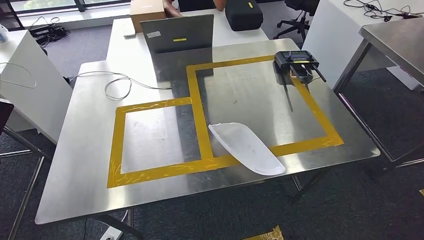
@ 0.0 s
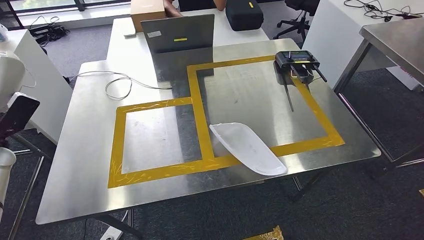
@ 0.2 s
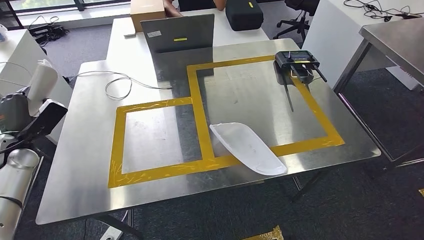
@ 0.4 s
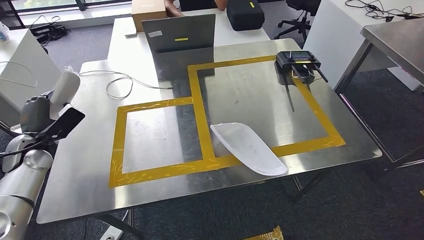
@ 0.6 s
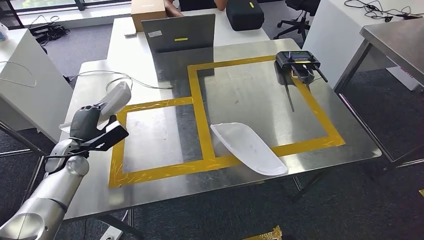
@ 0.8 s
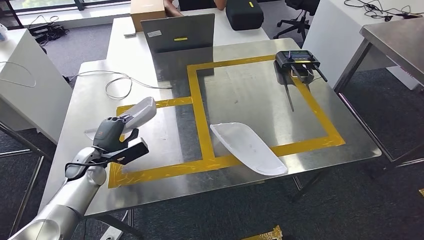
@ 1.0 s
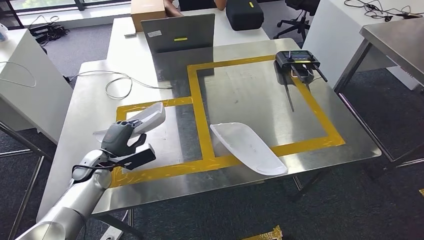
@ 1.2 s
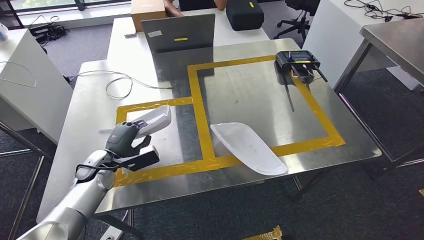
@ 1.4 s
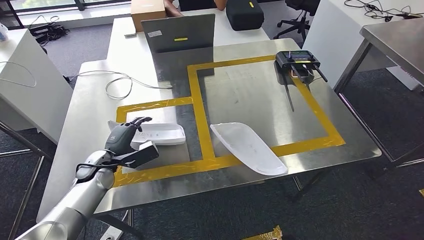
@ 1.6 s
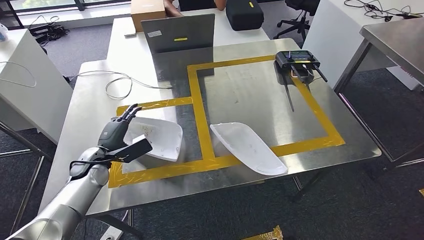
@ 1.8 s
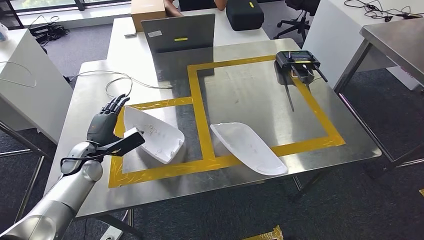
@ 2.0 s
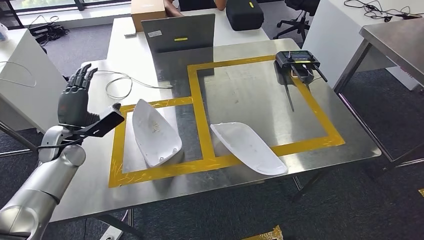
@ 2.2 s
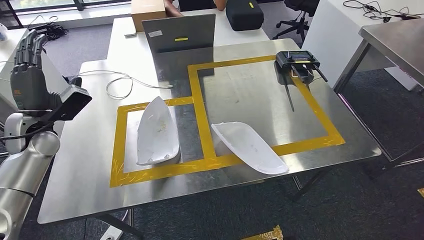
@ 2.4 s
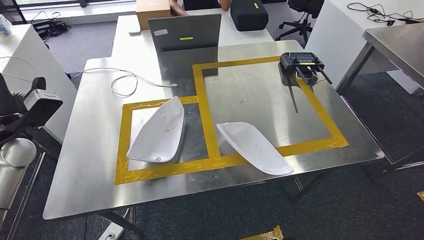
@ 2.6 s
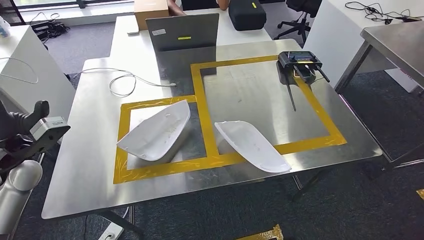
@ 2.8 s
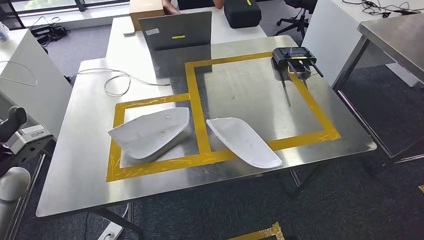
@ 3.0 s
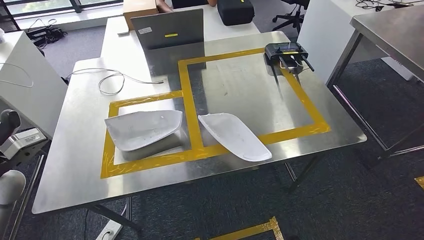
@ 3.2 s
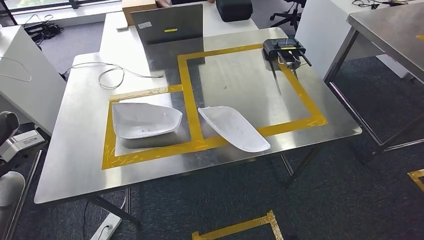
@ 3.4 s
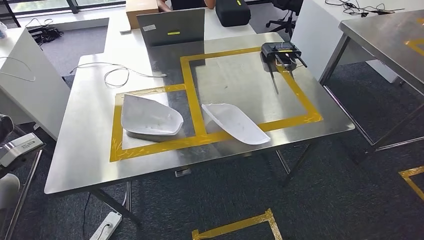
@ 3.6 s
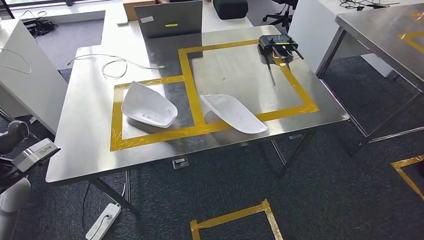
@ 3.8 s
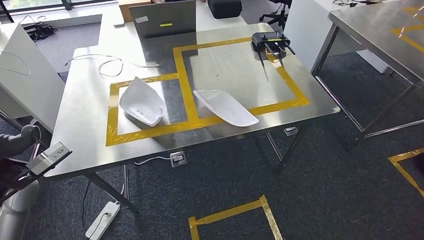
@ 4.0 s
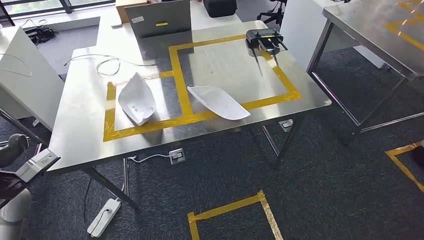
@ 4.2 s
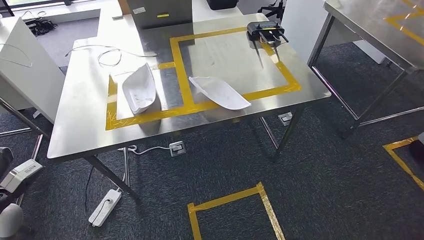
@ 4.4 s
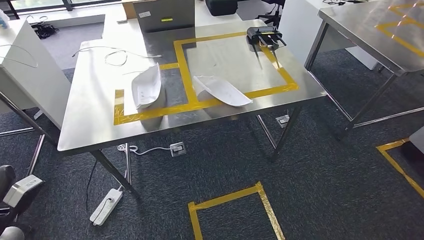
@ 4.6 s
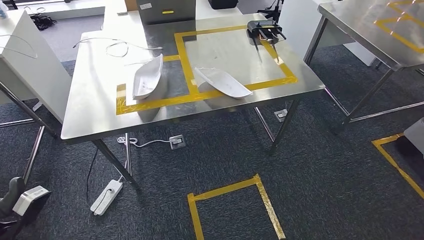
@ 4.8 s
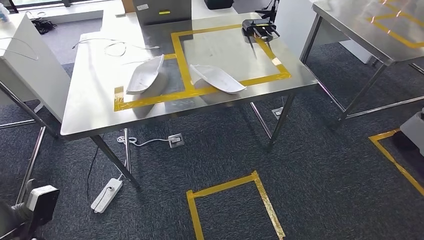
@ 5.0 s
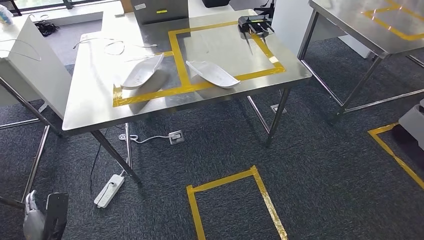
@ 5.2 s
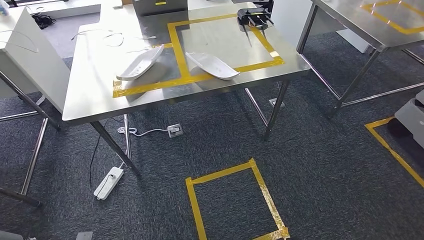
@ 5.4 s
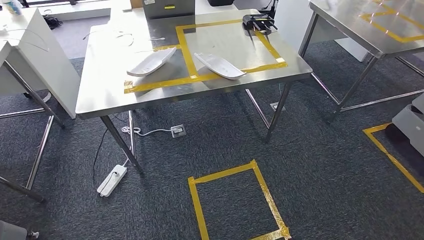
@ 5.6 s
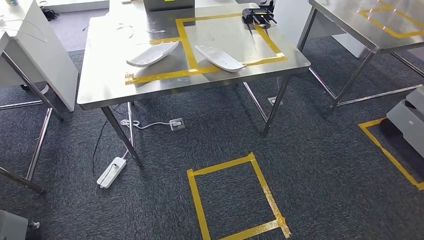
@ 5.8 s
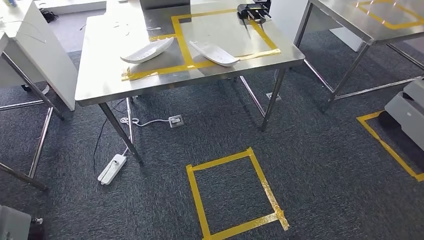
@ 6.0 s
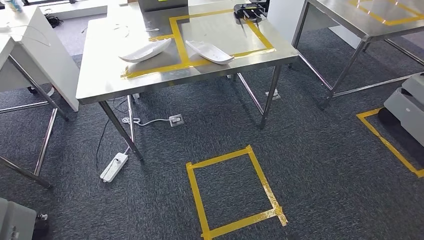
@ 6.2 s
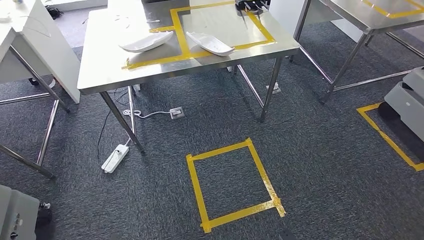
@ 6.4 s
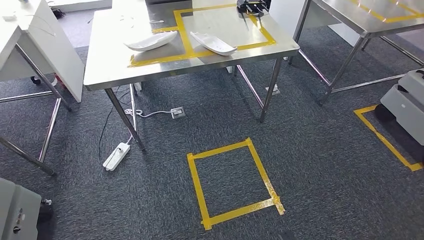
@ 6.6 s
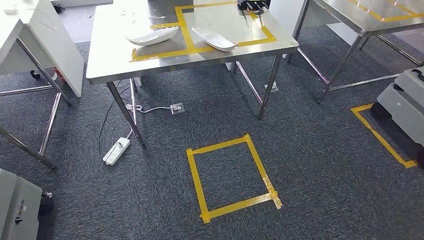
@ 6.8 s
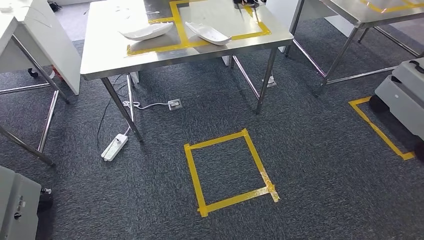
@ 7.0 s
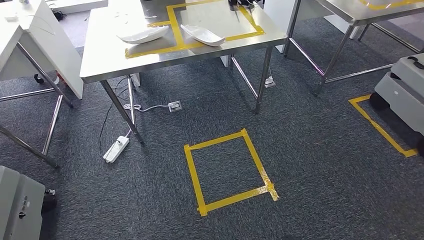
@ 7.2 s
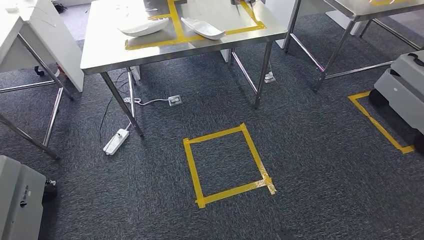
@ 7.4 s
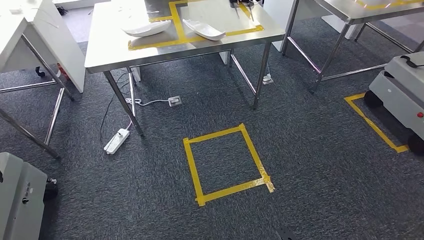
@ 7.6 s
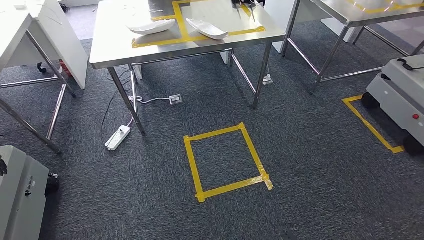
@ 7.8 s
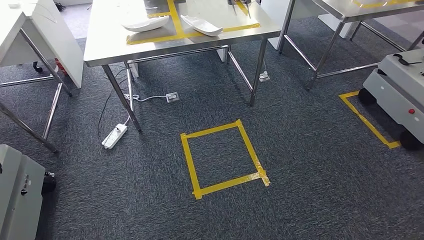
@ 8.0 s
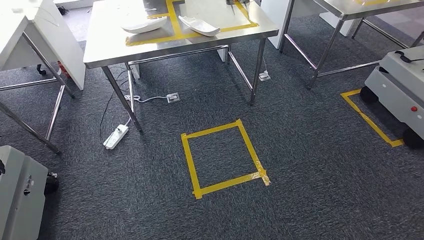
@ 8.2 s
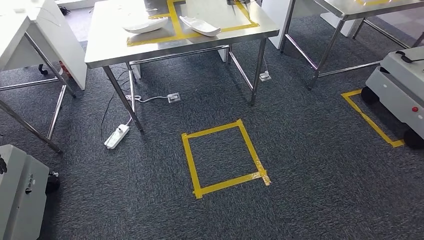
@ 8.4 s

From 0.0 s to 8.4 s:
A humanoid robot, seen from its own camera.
Step, from 0.0 s to 3.2 s: Insert the small component into the corresponding slot on the workbench.
Step, from 3.4 s to 8.4 s: Move to the initial position of the workbench.
From 0.0 s to 1.4 s: The left hand shifts roughly 25 cm to the right and downward.
